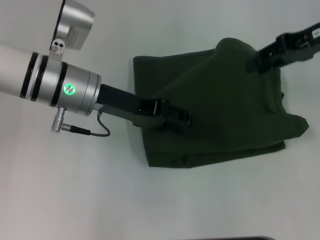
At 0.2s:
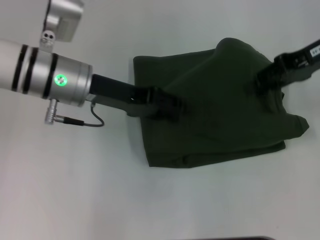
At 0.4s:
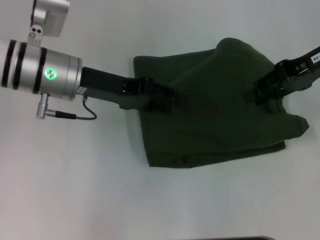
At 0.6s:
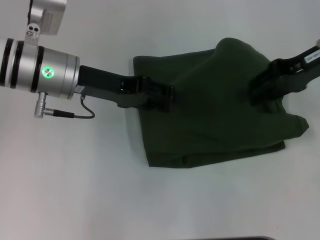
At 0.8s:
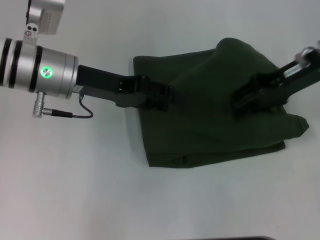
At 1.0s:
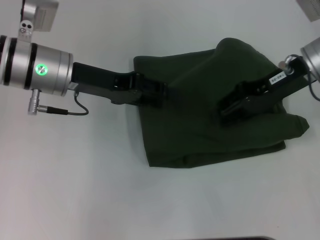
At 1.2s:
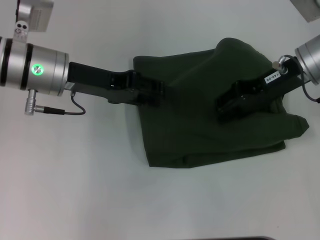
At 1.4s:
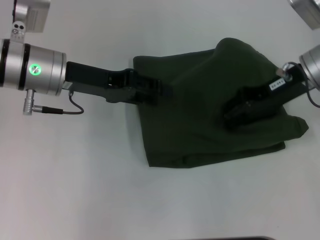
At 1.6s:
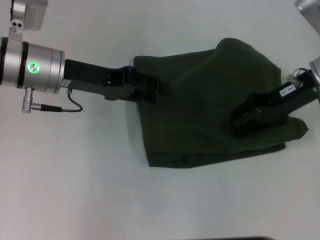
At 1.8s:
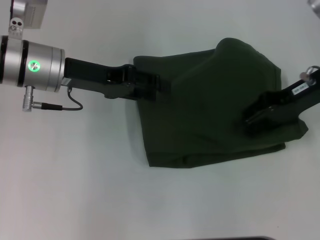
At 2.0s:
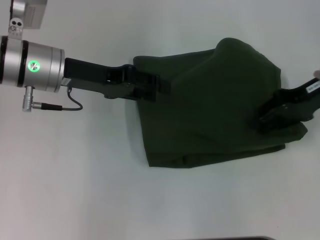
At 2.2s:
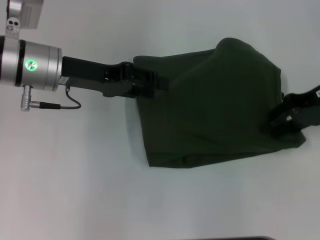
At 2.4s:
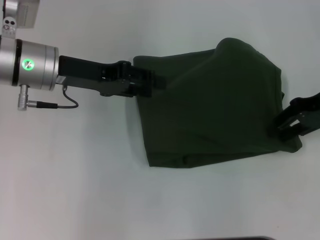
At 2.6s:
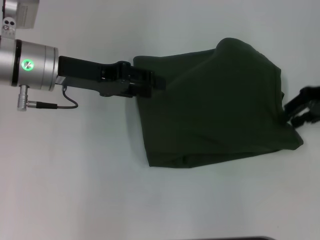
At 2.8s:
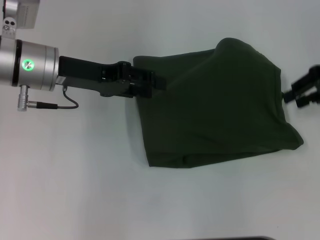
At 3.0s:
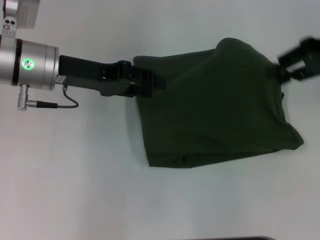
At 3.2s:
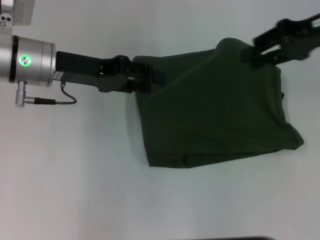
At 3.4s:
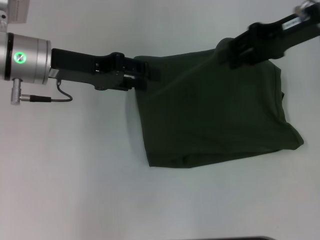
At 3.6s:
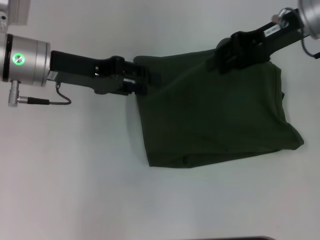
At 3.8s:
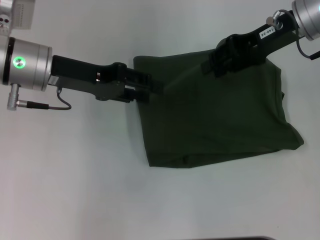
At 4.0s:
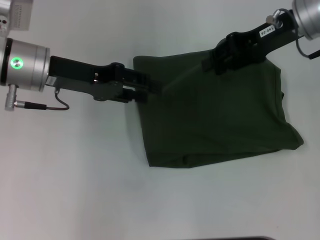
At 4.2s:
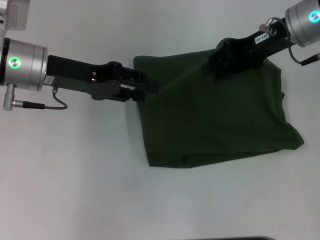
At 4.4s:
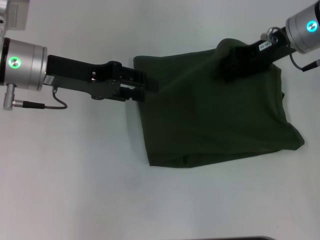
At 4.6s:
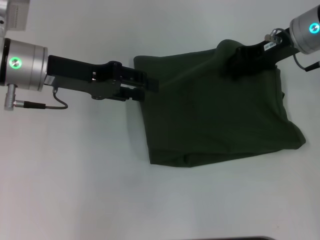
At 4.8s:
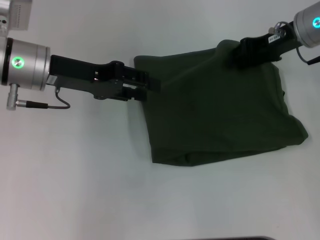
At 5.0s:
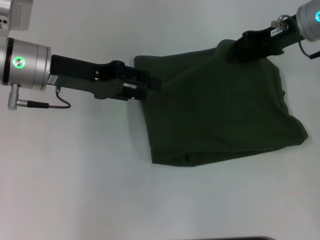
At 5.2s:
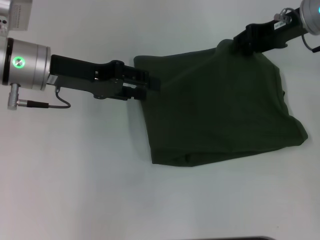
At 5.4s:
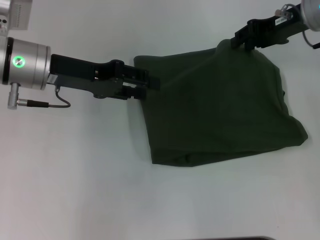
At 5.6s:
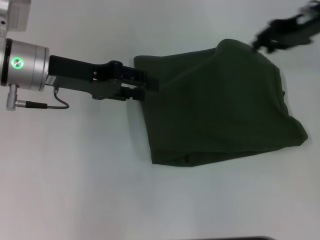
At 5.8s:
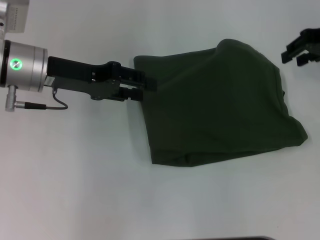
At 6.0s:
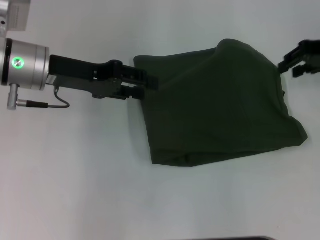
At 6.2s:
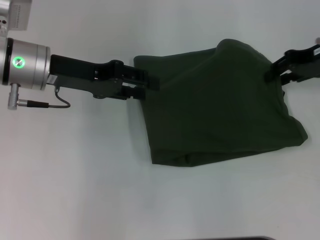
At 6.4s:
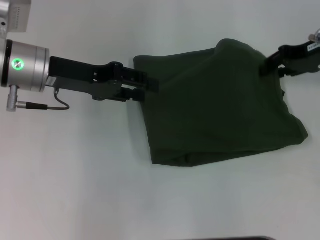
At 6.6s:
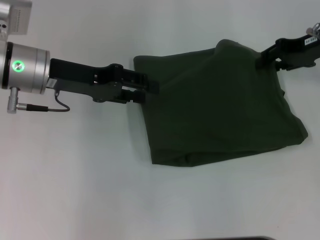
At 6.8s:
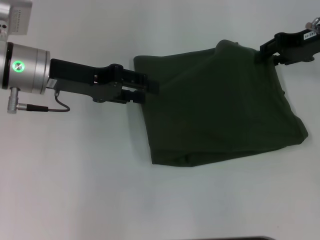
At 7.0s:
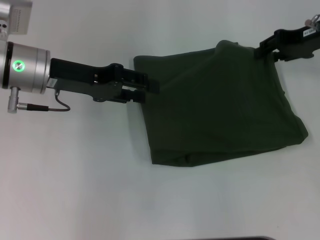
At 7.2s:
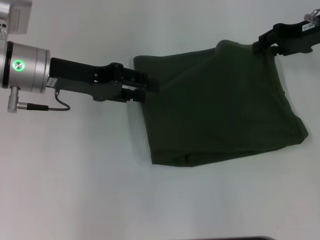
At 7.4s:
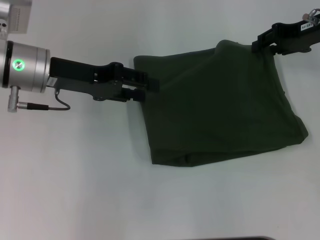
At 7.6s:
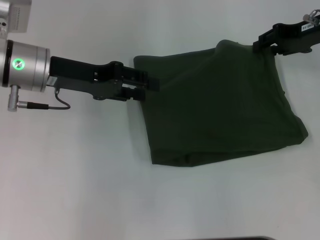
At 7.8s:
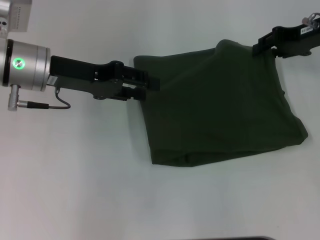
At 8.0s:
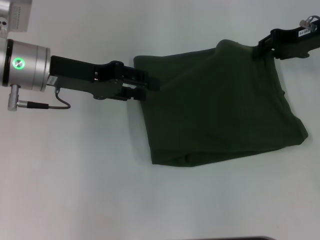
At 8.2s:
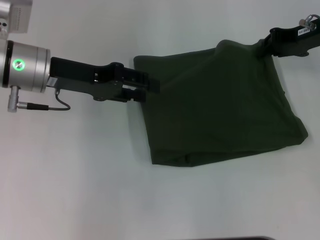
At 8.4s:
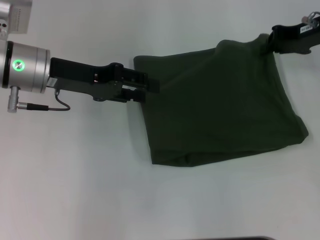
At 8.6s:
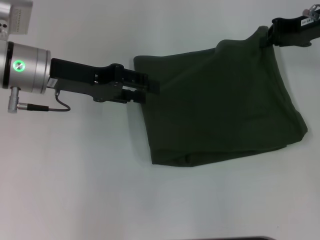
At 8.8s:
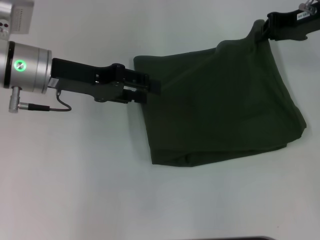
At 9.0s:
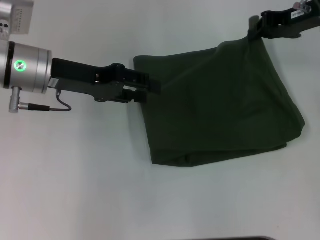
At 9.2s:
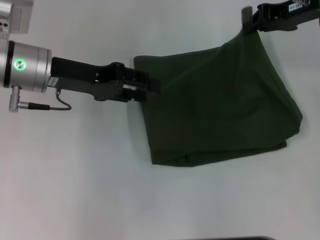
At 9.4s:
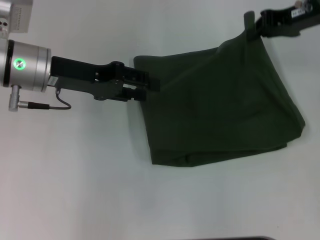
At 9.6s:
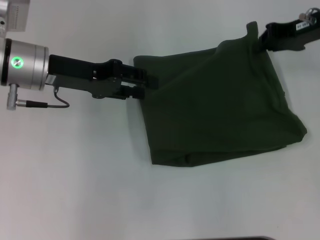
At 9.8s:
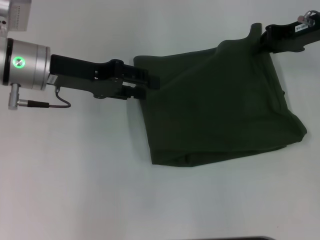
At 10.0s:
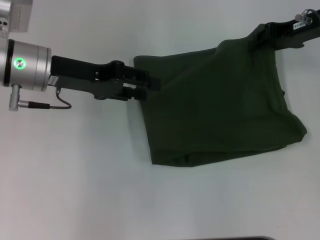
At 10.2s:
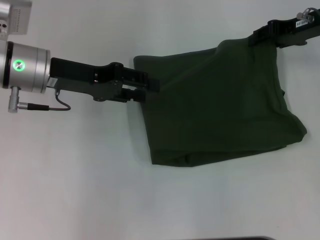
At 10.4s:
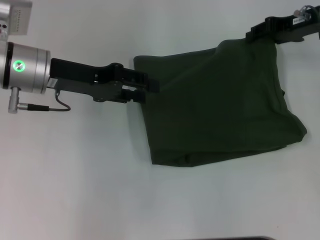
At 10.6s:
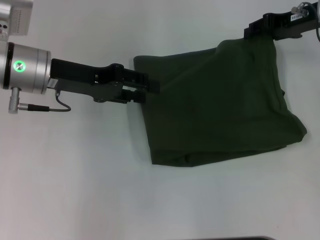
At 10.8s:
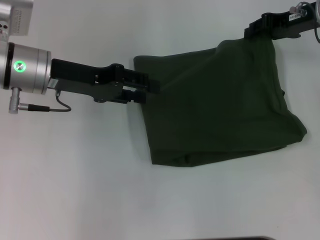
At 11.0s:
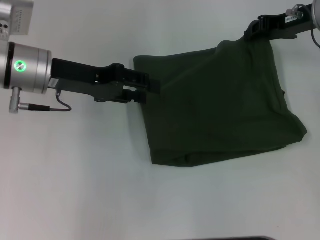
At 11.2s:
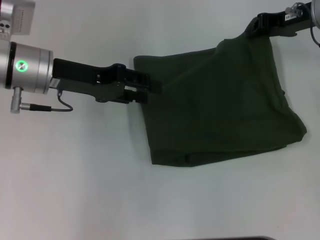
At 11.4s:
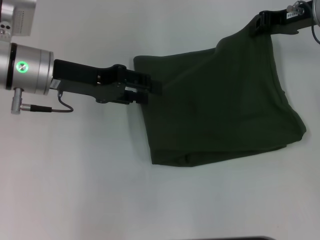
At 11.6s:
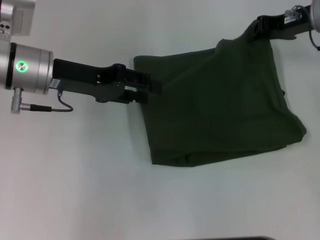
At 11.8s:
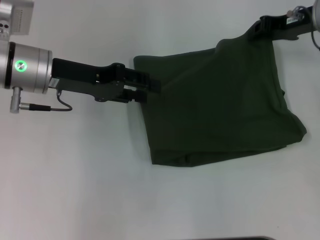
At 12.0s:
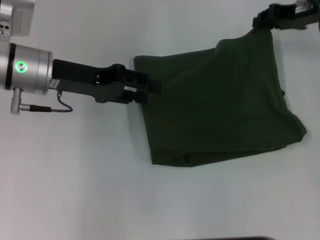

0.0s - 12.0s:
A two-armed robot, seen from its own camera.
0.0s - 1.6s: The right gripper heads downward, covering about 5 cm.
1.6s - 3.0s: The right gripper heads to the right and upward, covering roughly 10 cm.
3.0s - 4.4s: The right gripper goes about 10 cm to the left.
4.4s - 6.0s: The right gripper shifts roughly 10 cm to the right.
6.0s - 7.6s: The grippers stay close to where they were, moving slightly.
7.6s - 9.0s: The right gripper closes.
9.0s - 10.4s: The right gripper opens.
10.4s - 12.0s: The right gripper closes its fingers.

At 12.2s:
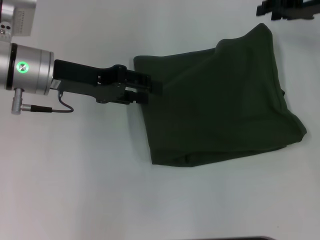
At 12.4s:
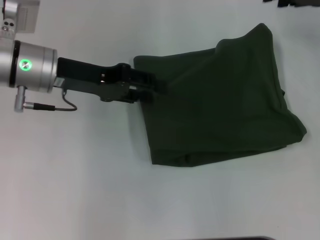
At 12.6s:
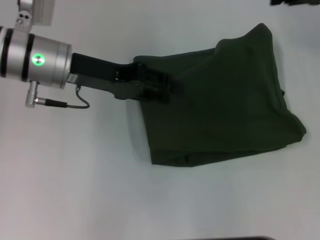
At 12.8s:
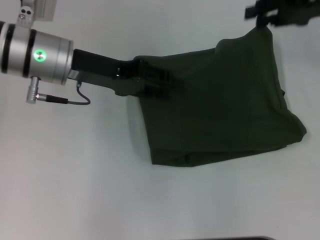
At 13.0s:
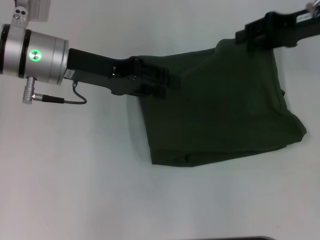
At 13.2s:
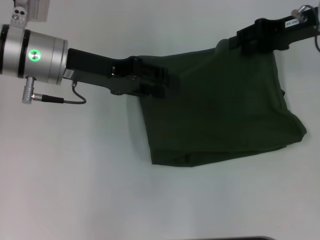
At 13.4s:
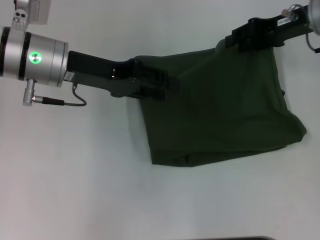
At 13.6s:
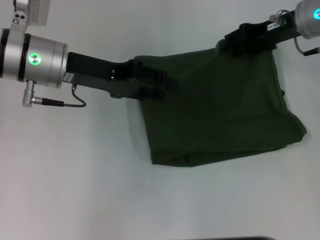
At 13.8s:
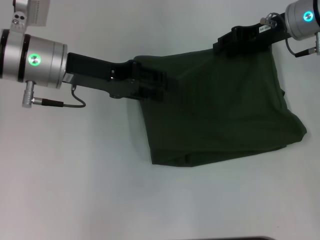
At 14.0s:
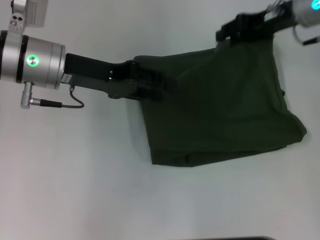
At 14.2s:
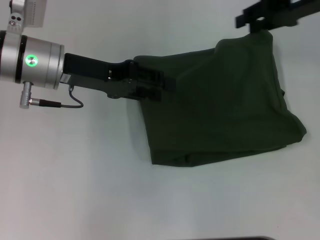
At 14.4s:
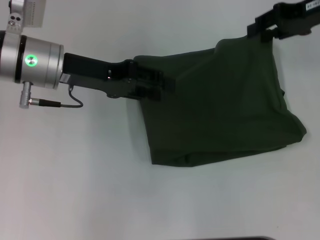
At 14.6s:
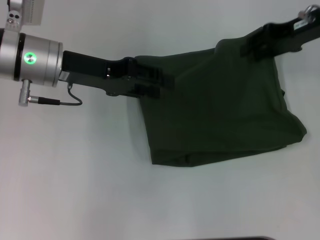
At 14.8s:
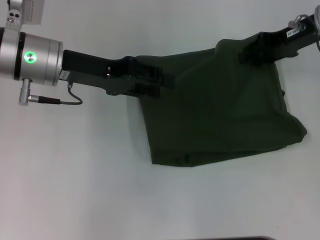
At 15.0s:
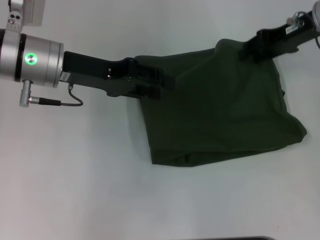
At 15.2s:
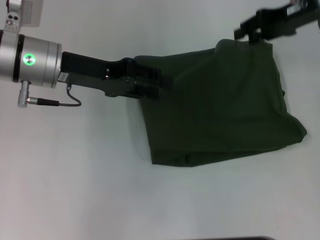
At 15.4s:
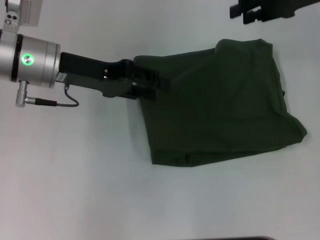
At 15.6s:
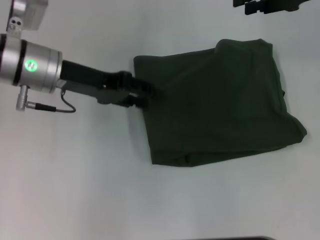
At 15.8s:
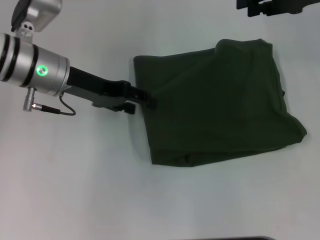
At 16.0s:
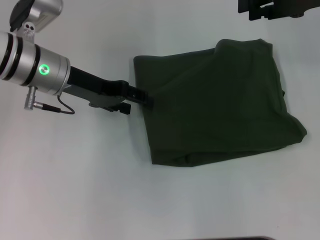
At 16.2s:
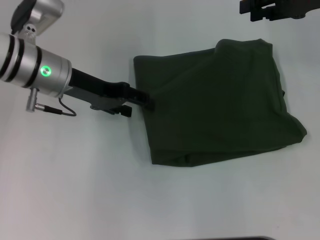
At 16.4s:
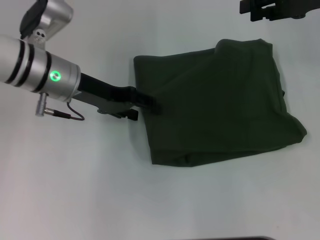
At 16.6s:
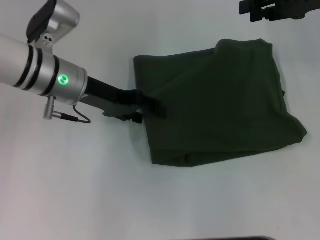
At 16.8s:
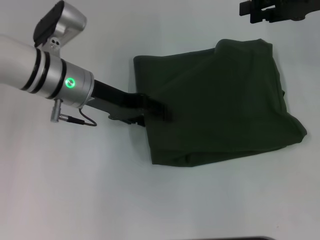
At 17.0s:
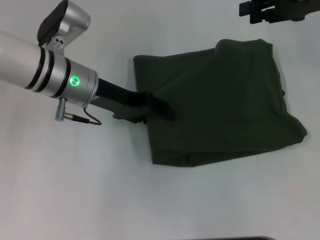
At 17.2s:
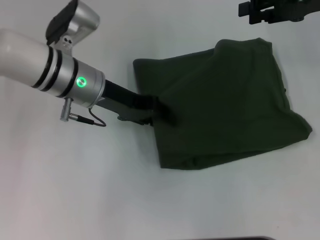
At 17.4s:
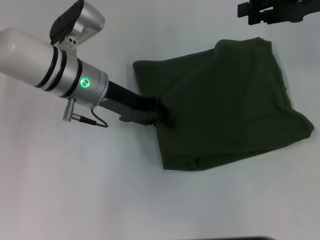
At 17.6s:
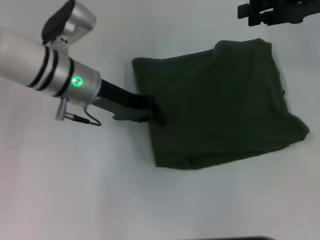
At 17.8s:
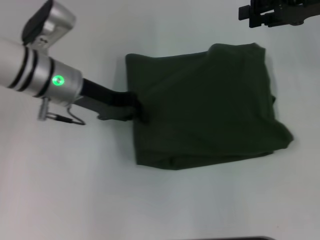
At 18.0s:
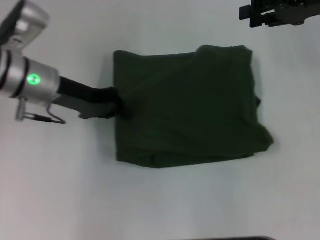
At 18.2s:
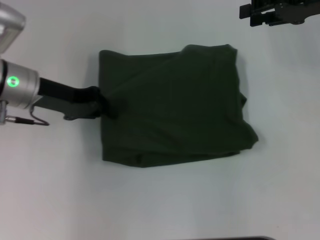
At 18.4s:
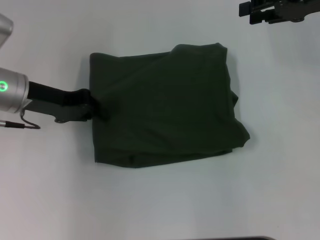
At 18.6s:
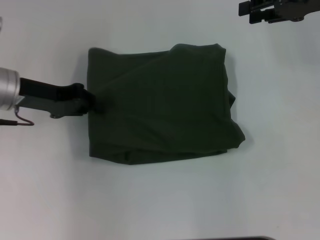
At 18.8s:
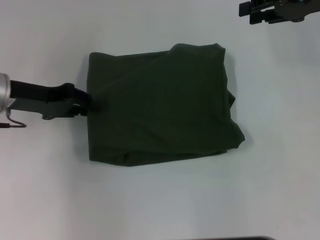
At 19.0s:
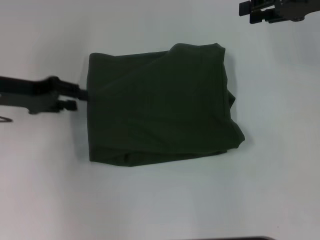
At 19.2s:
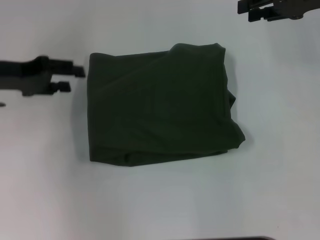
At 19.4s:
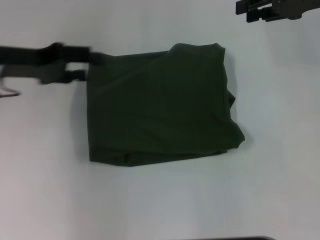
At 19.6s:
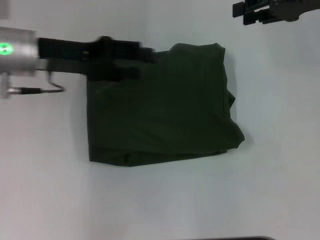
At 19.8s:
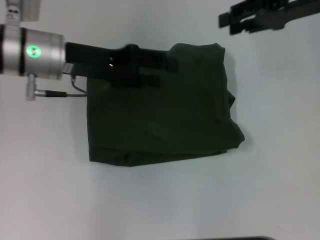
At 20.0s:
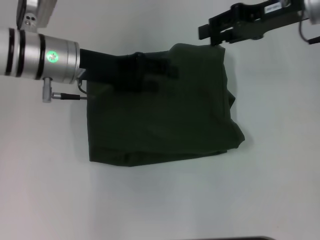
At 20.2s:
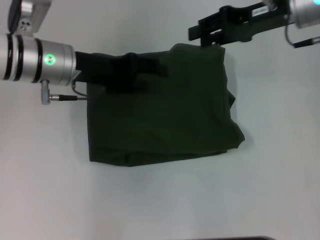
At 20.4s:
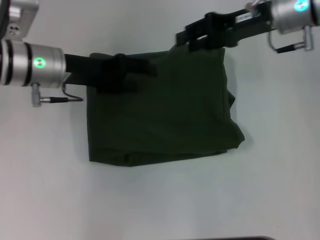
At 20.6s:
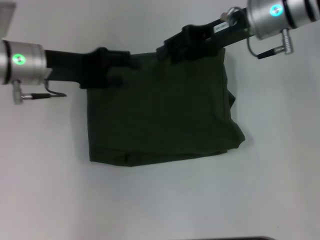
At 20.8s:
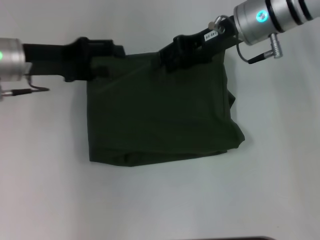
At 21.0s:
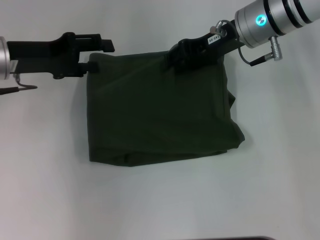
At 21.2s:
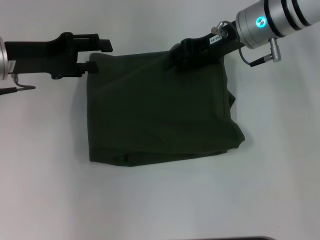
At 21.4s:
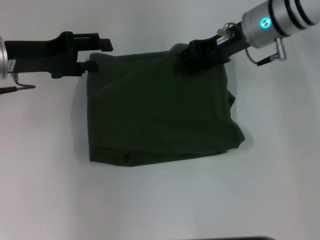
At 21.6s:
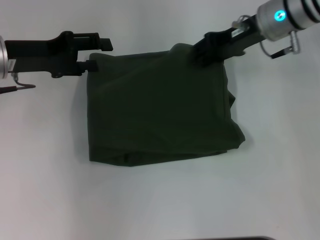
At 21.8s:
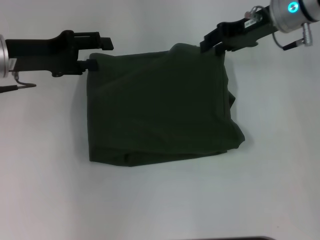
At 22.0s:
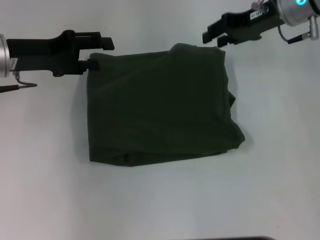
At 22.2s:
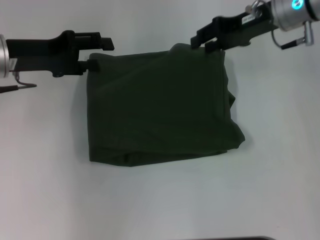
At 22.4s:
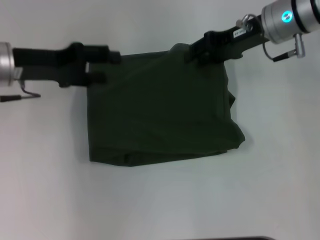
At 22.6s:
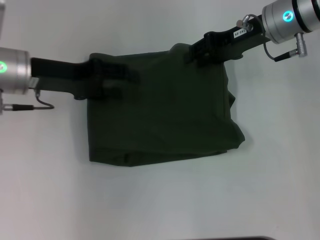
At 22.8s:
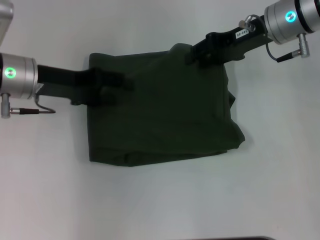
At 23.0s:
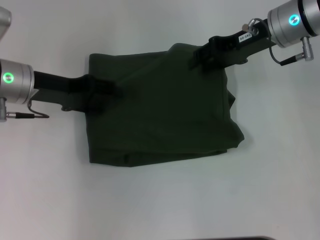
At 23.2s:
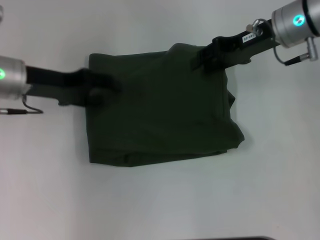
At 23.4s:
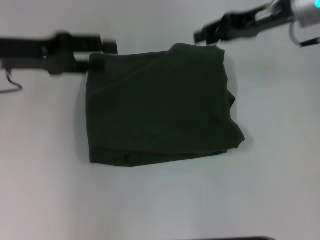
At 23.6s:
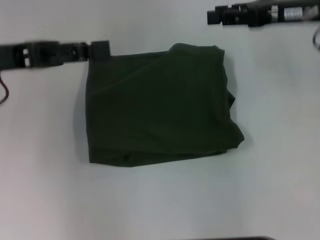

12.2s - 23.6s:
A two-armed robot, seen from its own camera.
12.2s - 13.6s: The right gripper moves approximately 5 cm.
13.6s - 15.0s: The grippers stay close to where they were, moving slightly.
15.0s - 16.4s: The right gripper ends up approximately 5 cm from where it was.
16.4s - 17.8s: The left gripper closes up.
17.8s - 19.4s: The left gripper travels to the left by roughly 10 cm, and opens its fingers.
19.4s - 20.8s: The right gripper travels to the left by about 15 cm. Meanwhile the left gripper moves about 10 cm to the right and comes back.
20.8s - 22.2s: The right gripper heads to the right, covering approximately 5 cm.
22.2s - 23.6s: The left gripper travels backward by about 5 cm, while the right gripper moves to the right and backward, about 10 cm.
